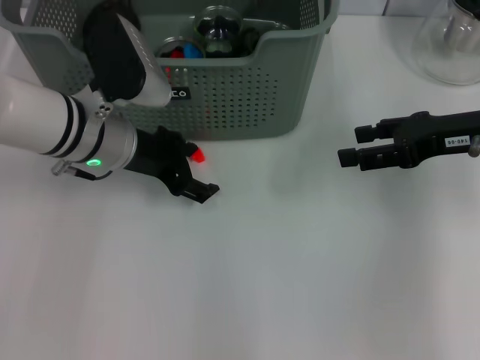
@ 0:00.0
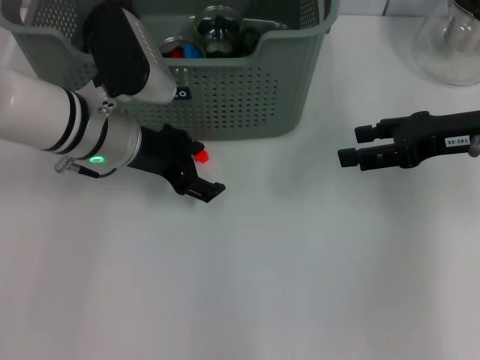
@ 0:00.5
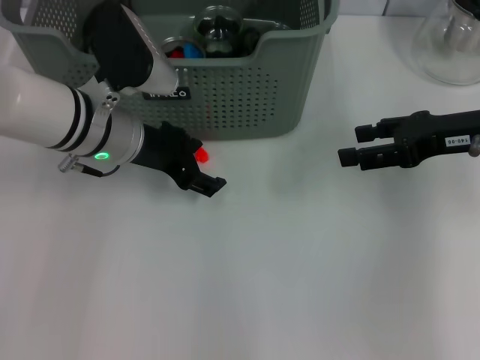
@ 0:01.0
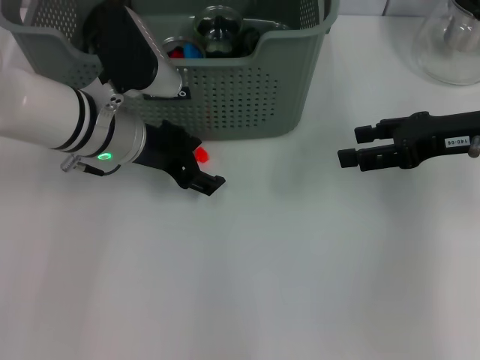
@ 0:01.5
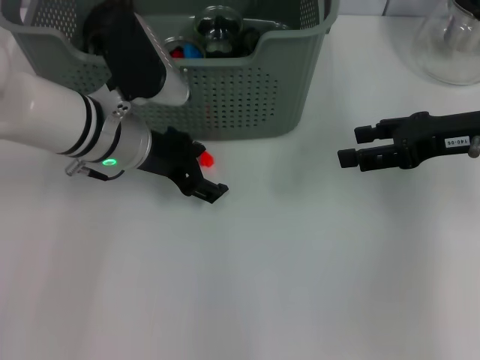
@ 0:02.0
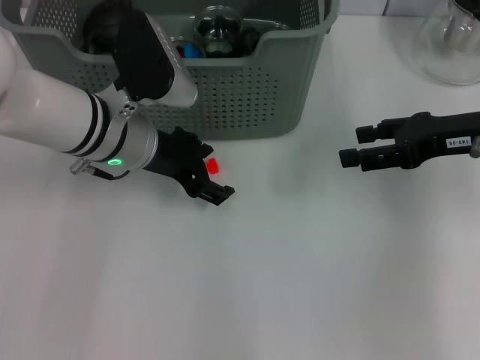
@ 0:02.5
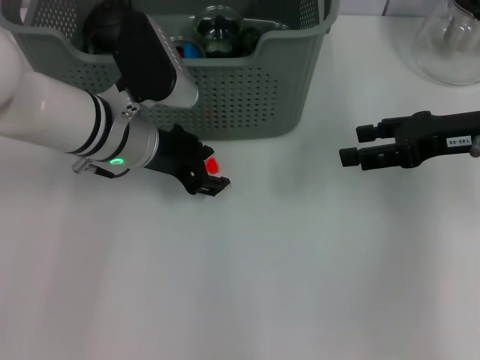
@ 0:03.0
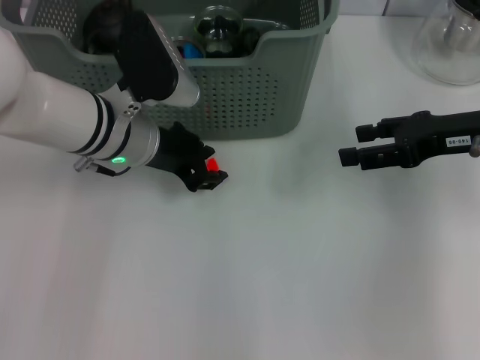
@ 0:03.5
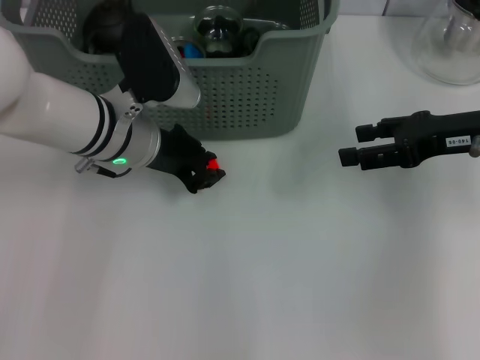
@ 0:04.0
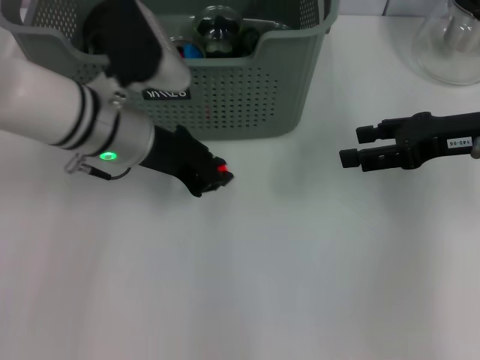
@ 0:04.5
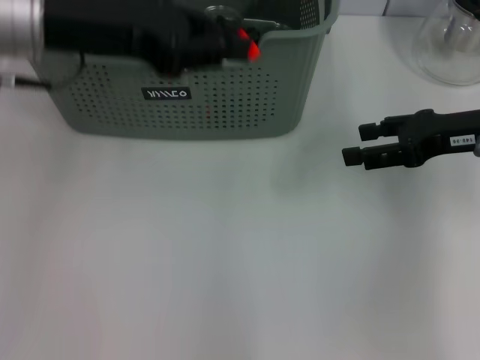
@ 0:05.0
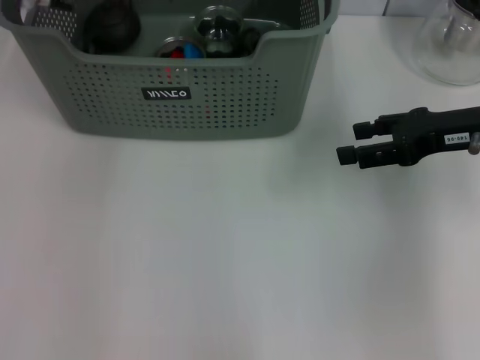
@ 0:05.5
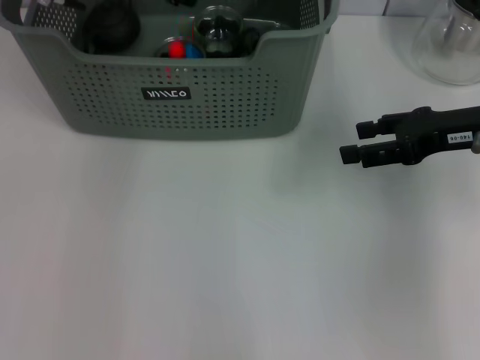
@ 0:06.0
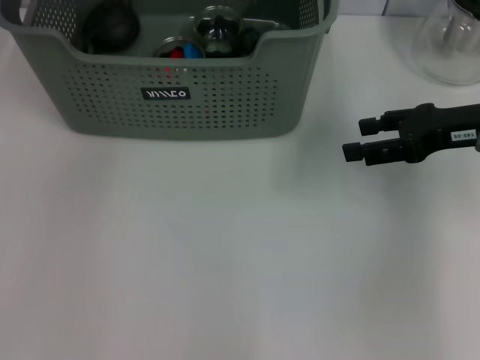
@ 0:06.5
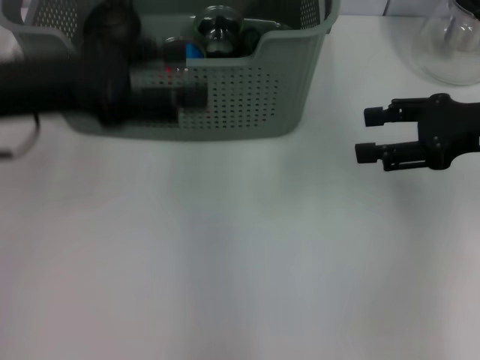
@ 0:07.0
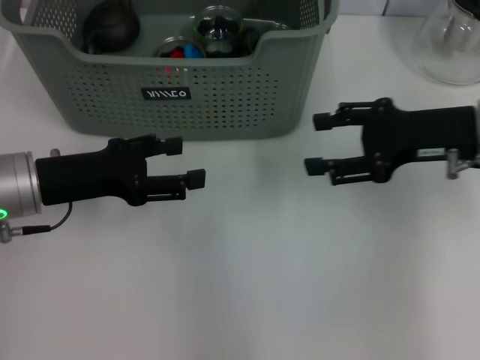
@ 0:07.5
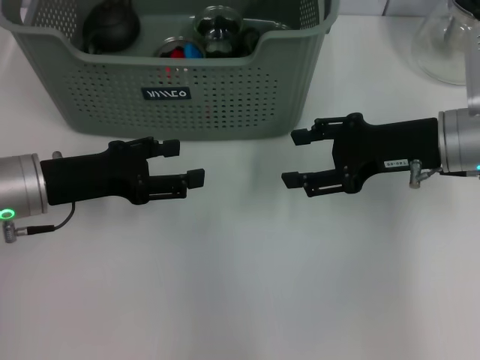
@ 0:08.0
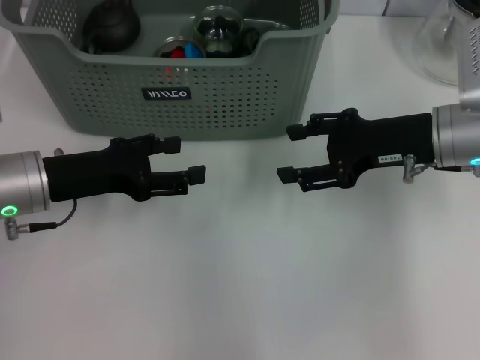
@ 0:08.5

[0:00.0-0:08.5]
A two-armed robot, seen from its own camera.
Task of the whole recording: pick up the teacup on the table and place it into the storage bin, pick up the block on the table and place it into the storage bin.
Step, 0:00.0 to 0:04.0: Grasp the orange block with left gripper.
Step, 0:04.5 to 0:05.5: Place the orange block in the storage box with left gripper.
0:00.0 to 0:02.0: The grippers stay close to where they were, moving slightly.
0:02.0 to 0:04.0: The left gripper closes up.
0:04.0 to 0:06.5: The left gripper travels upward by approximately 20 cm.
0:06.5 to 0:08.5: The left gripper shifts about 20 cm downward and backward, while the right gripper goes approximately 5 cm to the left.
